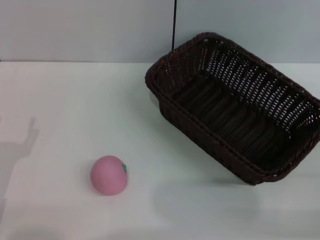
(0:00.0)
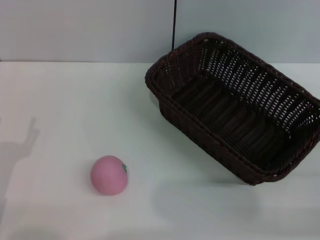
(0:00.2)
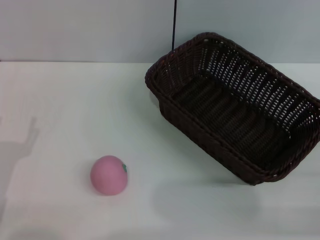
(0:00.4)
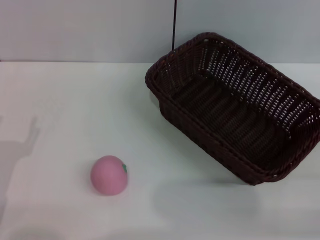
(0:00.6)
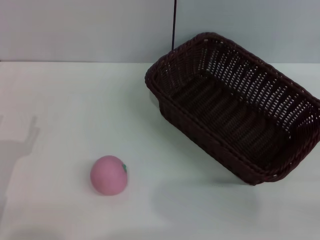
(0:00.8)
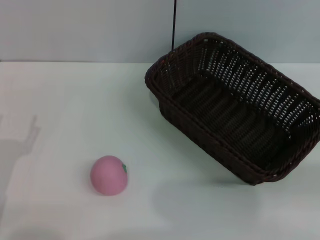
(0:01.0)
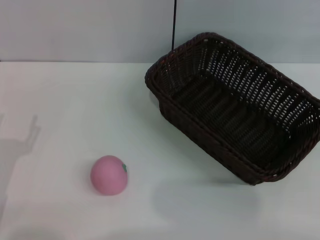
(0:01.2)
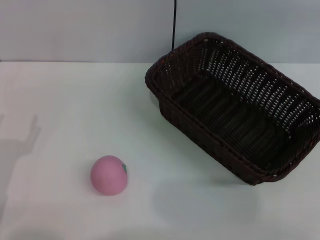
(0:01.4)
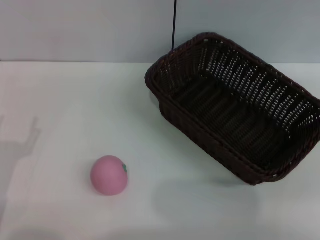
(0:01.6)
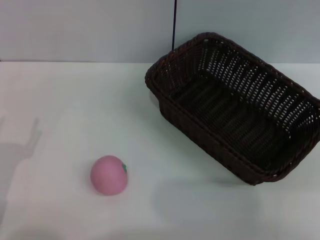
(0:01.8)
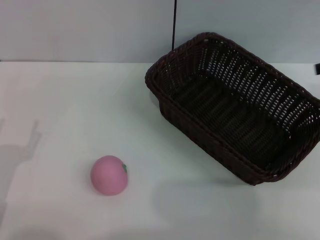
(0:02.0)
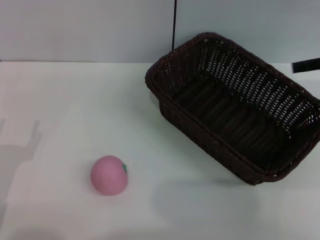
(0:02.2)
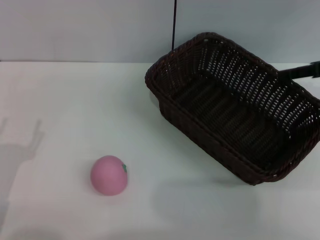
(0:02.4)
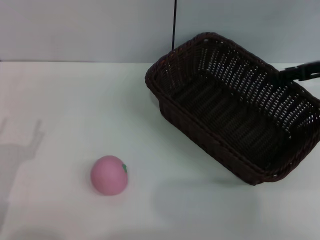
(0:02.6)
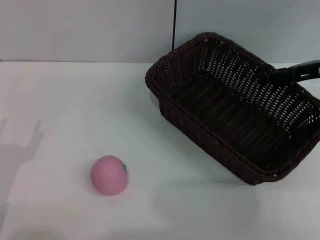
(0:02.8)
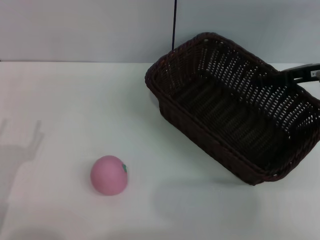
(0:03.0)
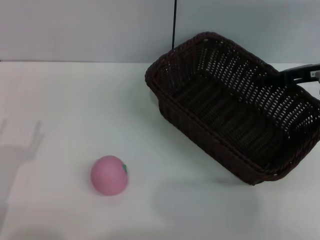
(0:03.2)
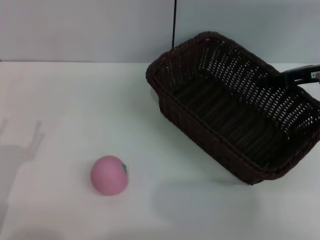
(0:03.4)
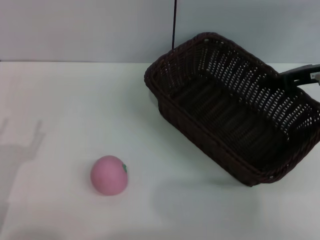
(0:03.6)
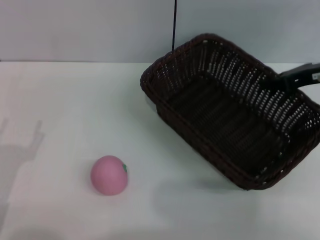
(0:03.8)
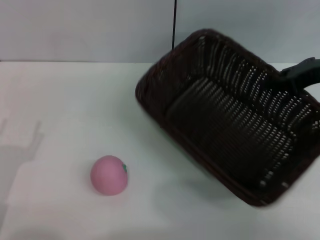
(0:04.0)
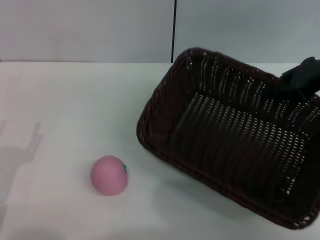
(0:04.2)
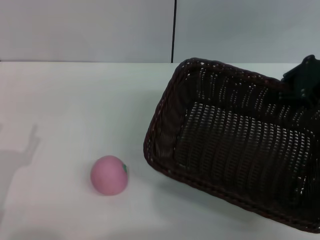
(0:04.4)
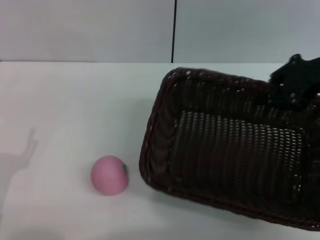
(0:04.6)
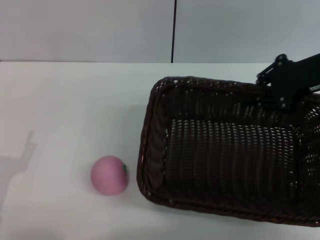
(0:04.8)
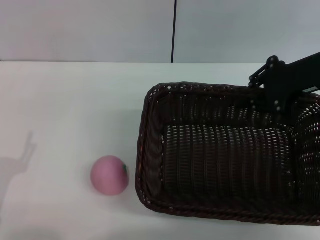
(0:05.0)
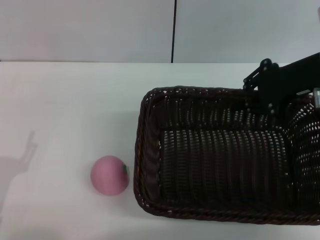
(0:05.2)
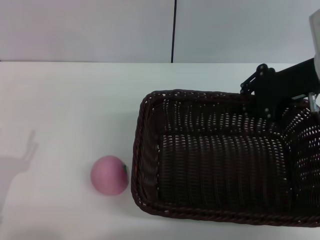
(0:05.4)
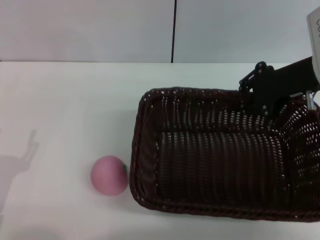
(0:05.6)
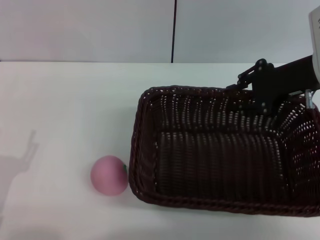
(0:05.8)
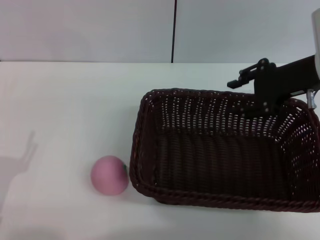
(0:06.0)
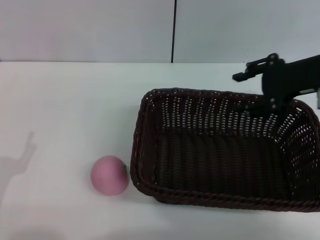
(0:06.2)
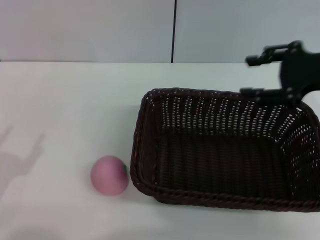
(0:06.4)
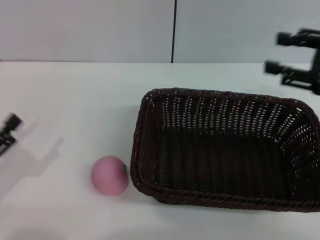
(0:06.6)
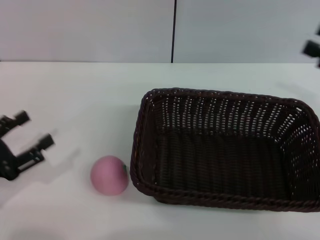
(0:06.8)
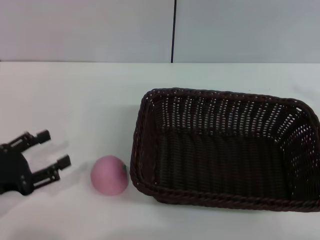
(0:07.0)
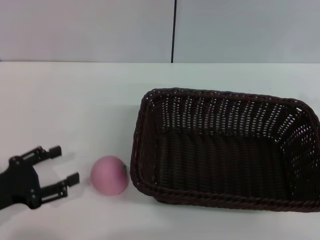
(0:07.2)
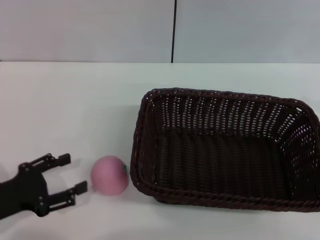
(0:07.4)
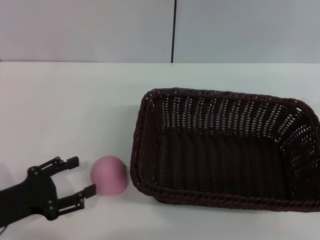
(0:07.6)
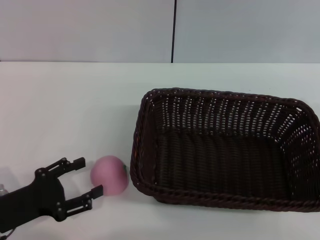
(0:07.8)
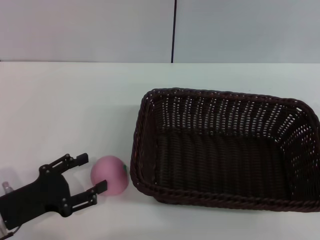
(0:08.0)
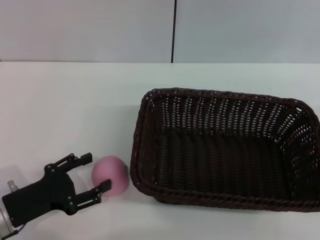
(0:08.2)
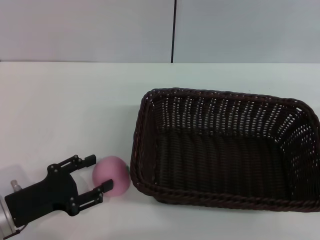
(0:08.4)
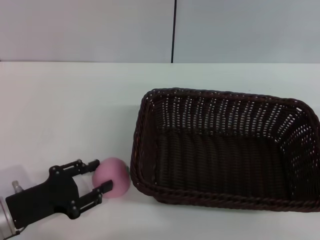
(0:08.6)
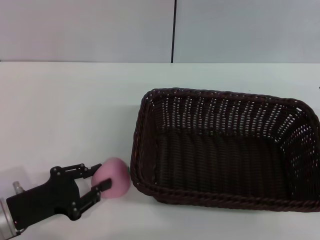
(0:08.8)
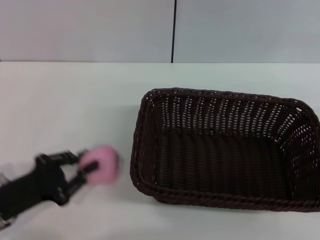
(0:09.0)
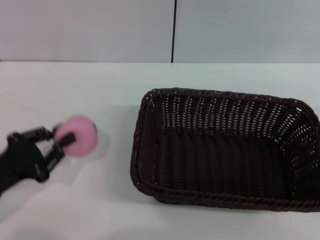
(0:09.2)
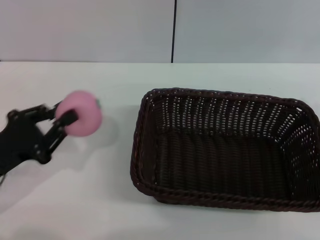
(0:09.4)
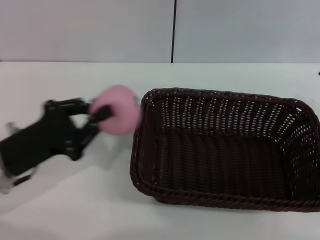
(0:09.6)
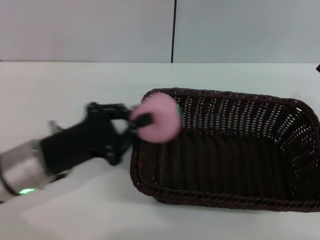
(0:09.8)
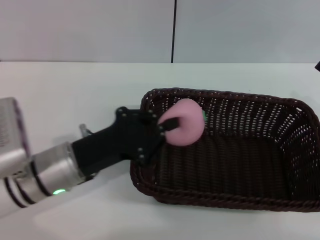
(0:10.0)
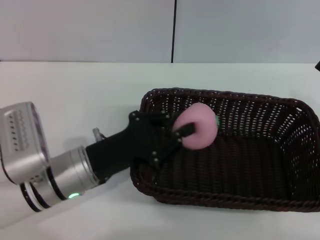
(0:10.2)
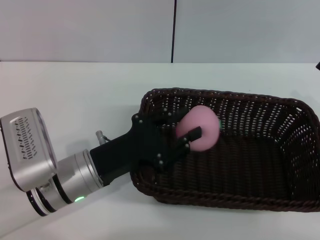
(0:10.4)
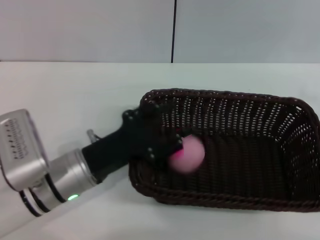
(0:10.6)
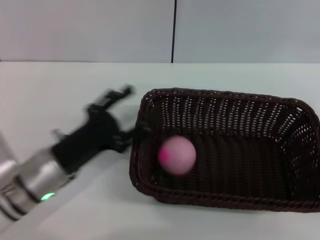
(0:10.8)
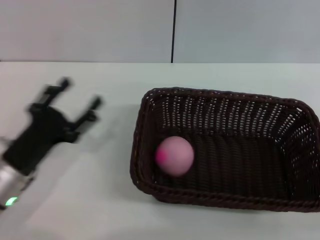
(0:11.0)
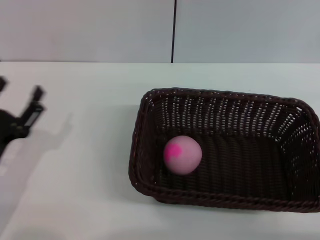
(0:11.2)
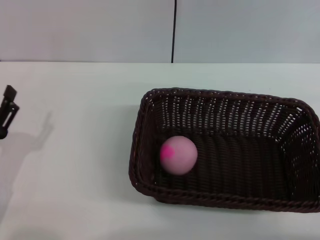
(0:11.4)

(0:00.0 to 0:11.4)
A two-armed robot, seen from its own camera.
Step, 0:00.0 - 0:04.0: Pick up the dark basket with the right gripper.
Step, 0:04.2 - 0:06.2: Place the dark basket in the center of view with the right gripper.
Step, 0:06.4 - 0:08.8: Pick up the peach with the left gripper.
Step, 0:09.2 - 0:10.6: Place the peach into the basket with the left gripper.
0:01.4 - 0:02.8: The right gripper shifts some 20 cm to the left, forward and downward.
0:02.8 - 0:04.2: The right gripper travels upward by roughly 5 cm, and closes its fingers.
0:04.2 - 0:05.6: The right gripper goes approximately 5 cm to the left.
0:05.6 - 0:07.2: The right gripper moves to the right, backward and downward, approximately 20 cm, and opens. The left gripper moves forward, roughly 5 cm.
0:07.2 - 0:08.6: The left gripper changes place by about 5 cm.
0:08.6 - 0:10.0: The left gripper goes approximately 10 cm to the right and forward, and closes.
0:10.0 - 0:11.4: The left gripper is displaced to the left and backward by some 10 cm, and opens its fingers. The right gripper shifts approximately 10 cm backward.

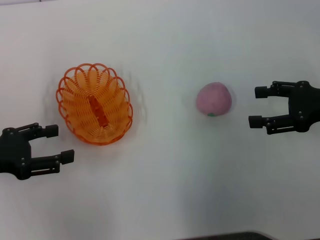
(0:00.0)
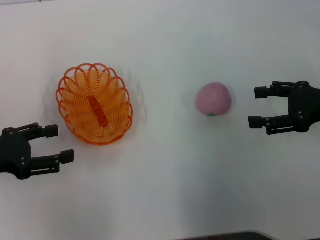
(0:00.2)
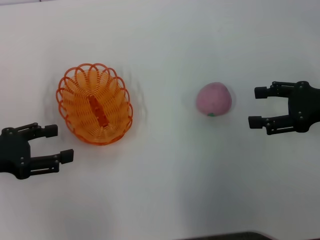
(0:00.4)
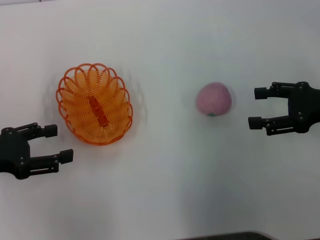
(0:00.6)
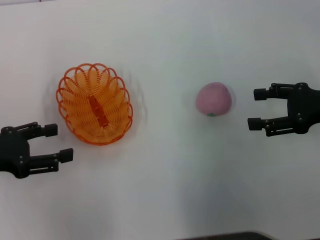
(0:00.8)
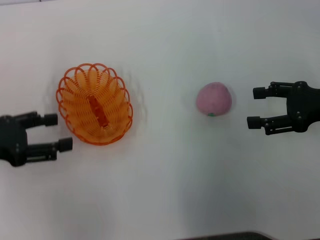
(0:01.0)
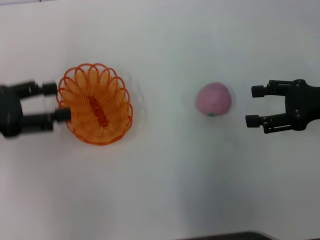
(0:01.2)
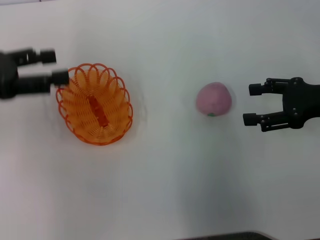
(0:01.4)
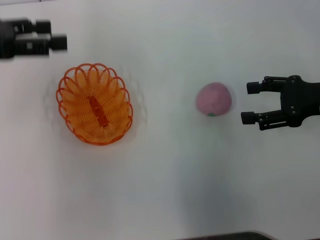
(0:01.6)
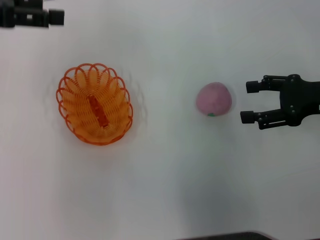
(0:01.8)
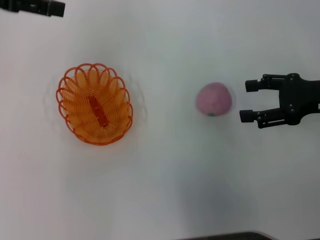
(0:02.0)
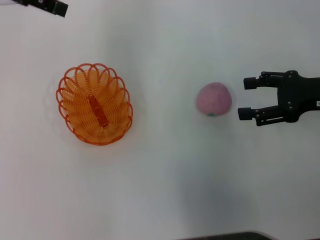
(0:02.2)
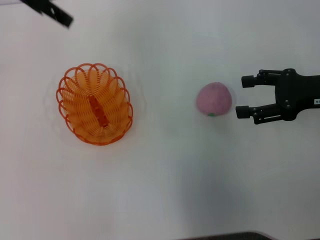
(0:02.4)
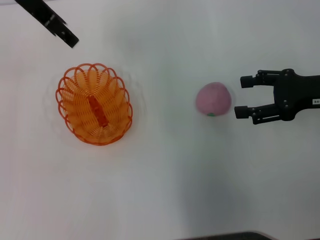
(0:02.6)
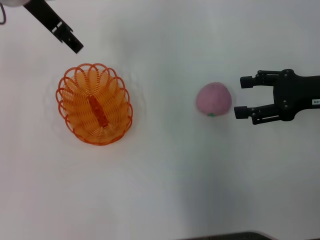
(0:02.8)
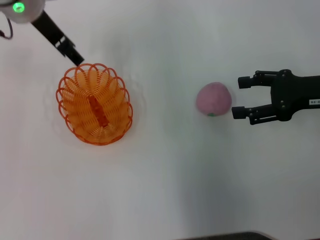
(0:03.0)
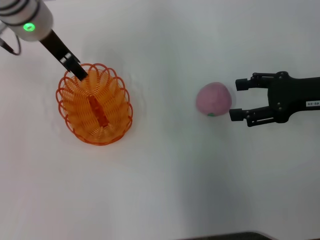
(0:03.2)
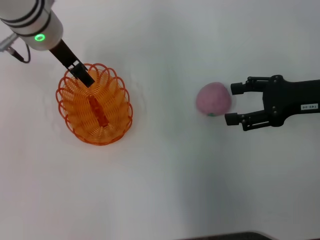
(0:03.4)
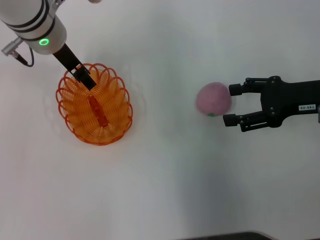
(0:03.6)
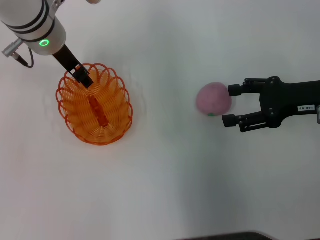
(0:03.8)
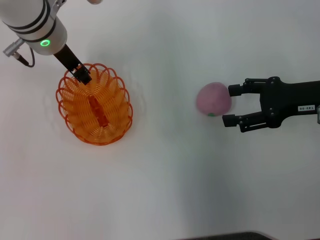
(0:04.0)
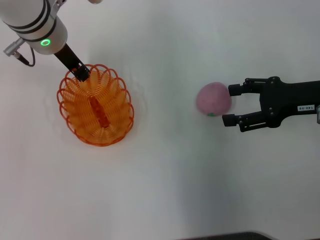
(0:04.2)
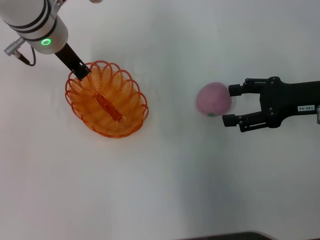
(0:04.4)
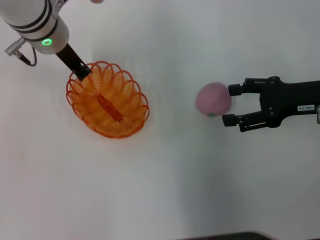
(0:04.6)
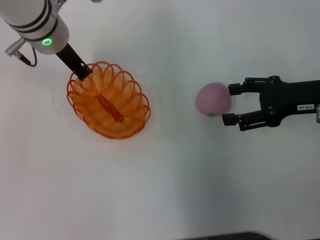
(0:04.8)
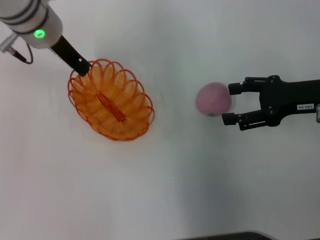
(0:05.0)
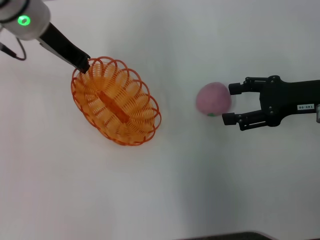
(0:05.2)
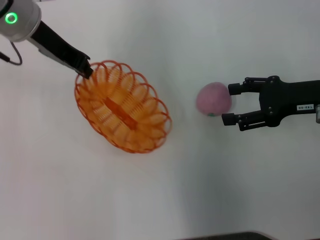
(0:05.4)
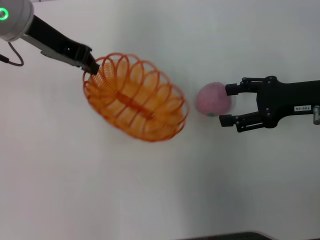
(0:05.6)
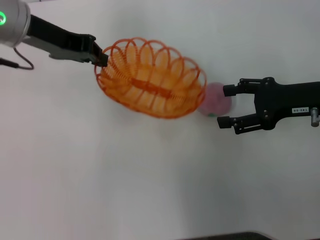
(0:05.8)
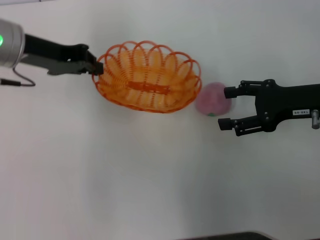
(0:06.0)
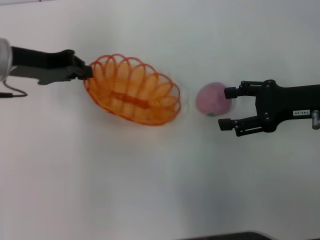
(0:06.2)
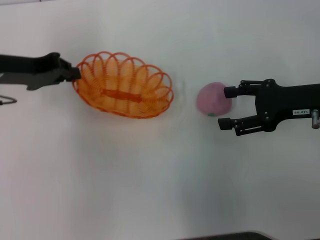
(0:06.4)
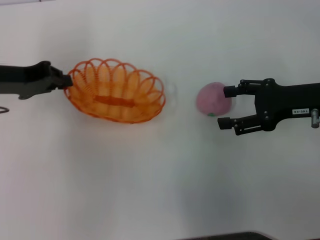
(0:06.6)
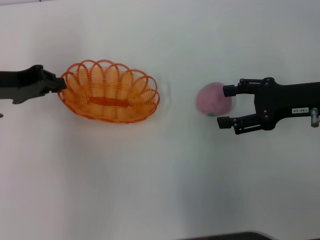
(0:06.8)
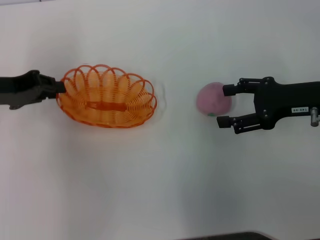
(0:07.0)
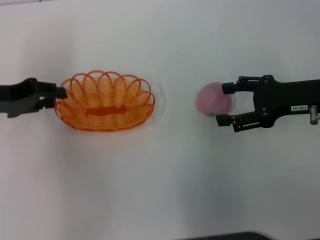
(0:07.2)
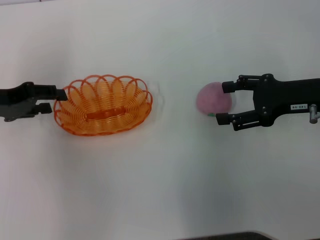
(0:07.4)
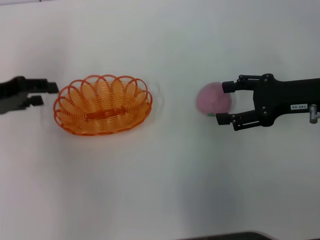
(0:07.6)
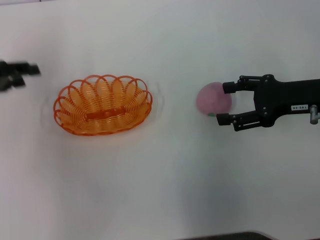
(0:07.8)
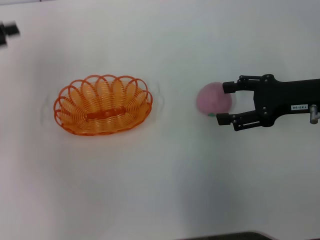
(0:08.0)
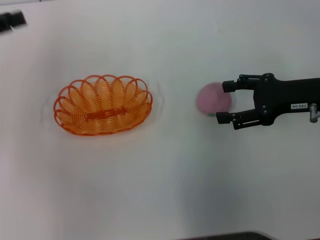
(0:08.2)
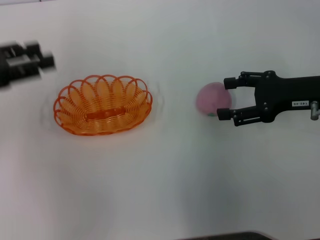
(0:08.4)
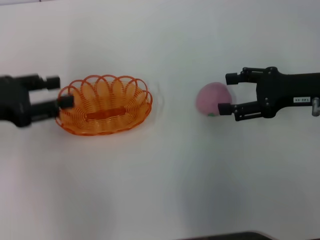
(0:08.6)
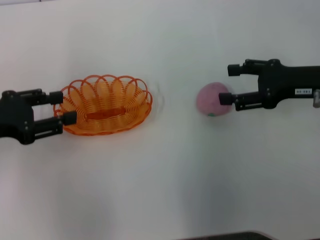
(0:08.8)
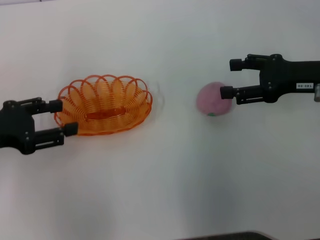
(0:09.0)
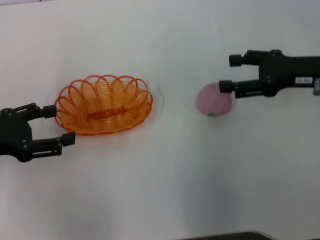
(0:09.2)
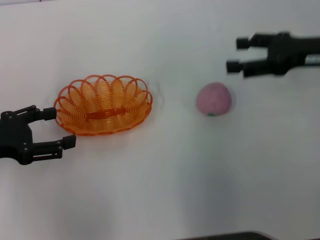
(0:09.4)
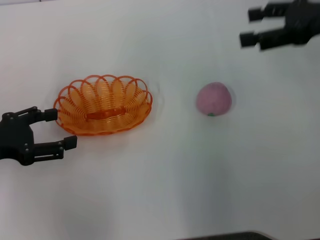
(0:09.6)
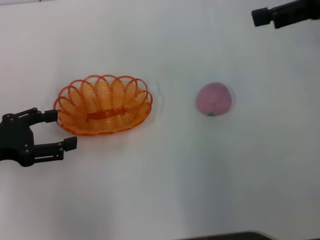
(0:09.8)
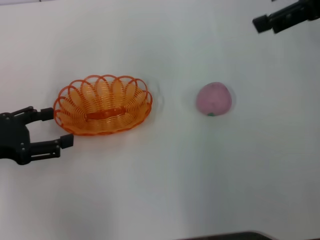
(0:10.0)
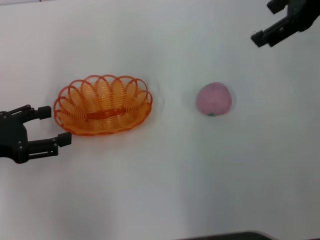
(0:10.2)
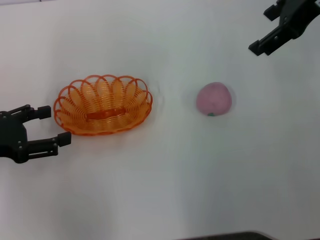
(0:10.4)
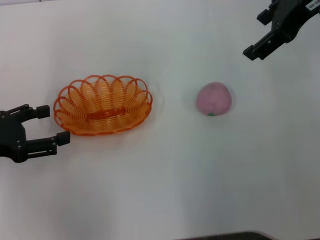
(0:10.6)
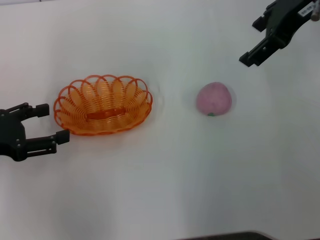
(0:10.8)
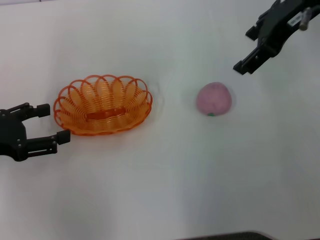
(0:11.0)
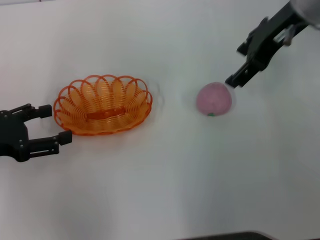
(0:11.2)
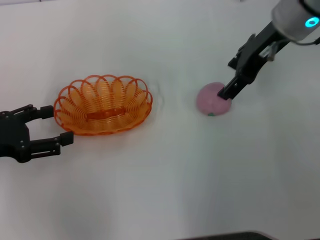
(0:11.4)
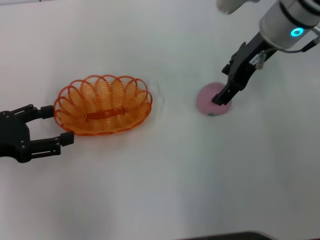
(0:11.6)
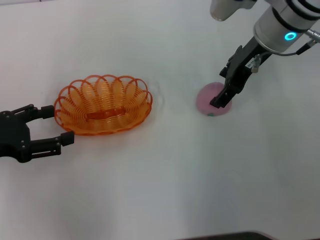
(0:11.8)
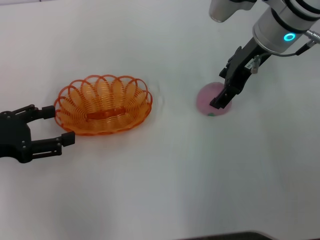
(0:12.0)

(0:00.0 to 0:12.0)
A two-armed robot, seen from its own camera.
Step, 0:00.0 - 0:05.4: Pick up the basket with the left gripper.
Step, 0:05.6 - 0:08.4: Place the basket in the center of view with the left gripper.
0:00.0 - 0:01.6: The left gripper is displaced upward and forward by about 15 cm.
0:01.6 - 0:03.0: The left gripper moves to the right and forward, roughly 15 cm.
0:03.0 - 0:04.4: The left gripper changes place by approximately 5 cm, and closes up.
0:04.4 - 0:06.0: The left gripper goes roughly 10 cm to the left.
0:06.0 - 0:07.6: The left gripper heads to the left and backward, covering roughly 10 cm, and opens its fingers.
0:07.6 - 0:09.0: The left gripper travels backward by some 5 cm.
0:09.0 - 0:10.4: The right gripper is displaced upward by some 15 cm.
0:10.4 - 0:12.0: The right gripper shifts approximately 15 cm downward and to the left.
